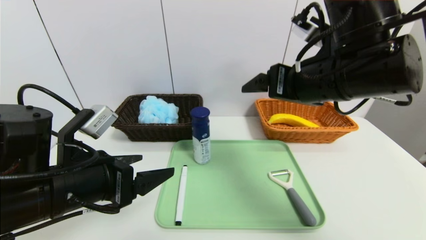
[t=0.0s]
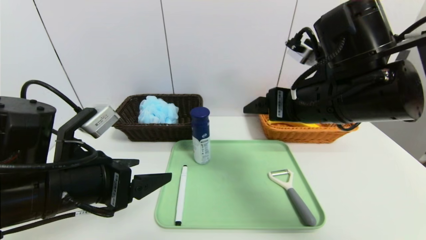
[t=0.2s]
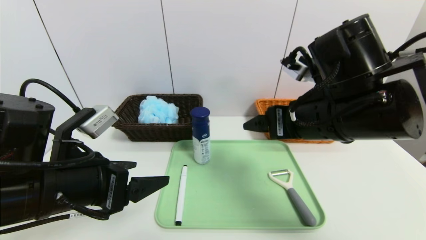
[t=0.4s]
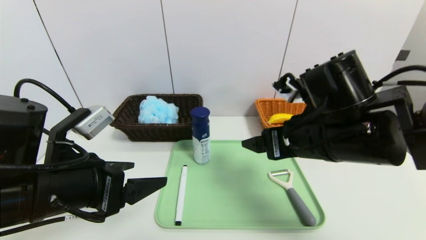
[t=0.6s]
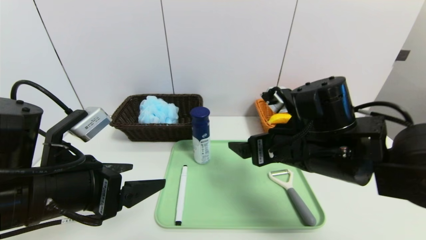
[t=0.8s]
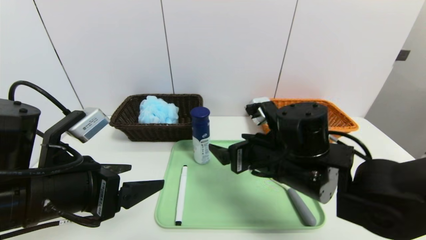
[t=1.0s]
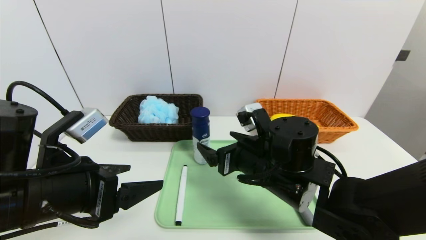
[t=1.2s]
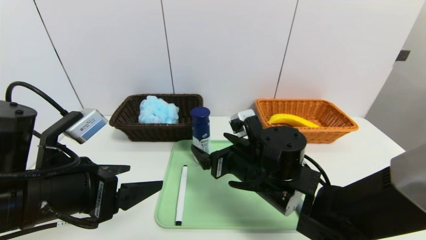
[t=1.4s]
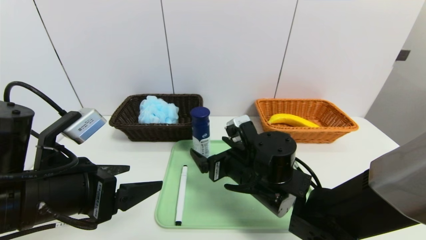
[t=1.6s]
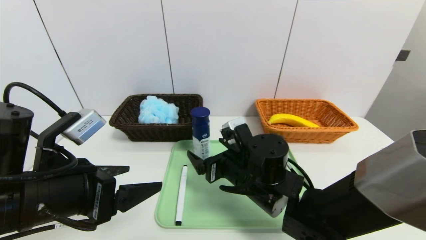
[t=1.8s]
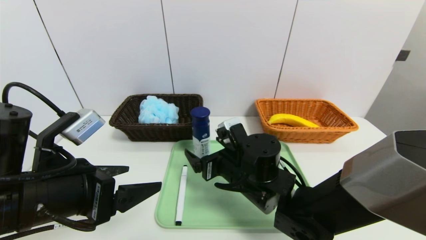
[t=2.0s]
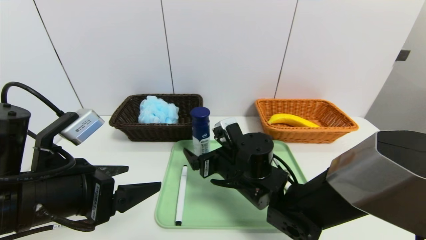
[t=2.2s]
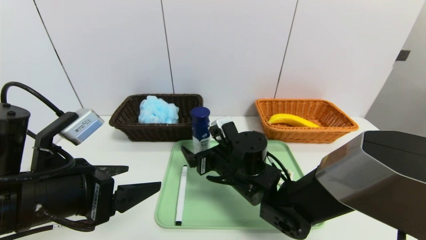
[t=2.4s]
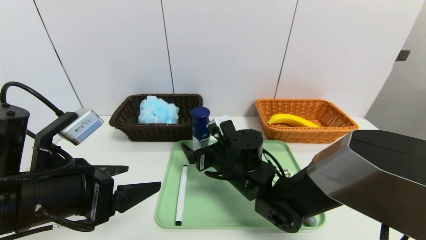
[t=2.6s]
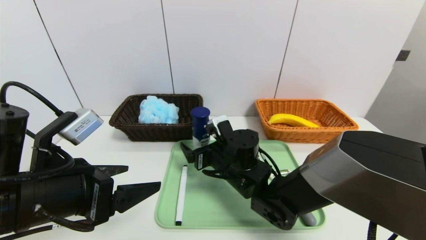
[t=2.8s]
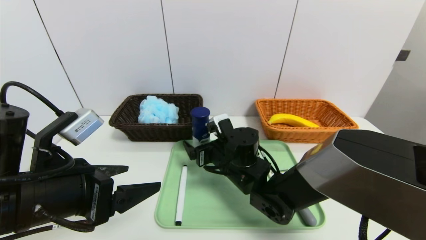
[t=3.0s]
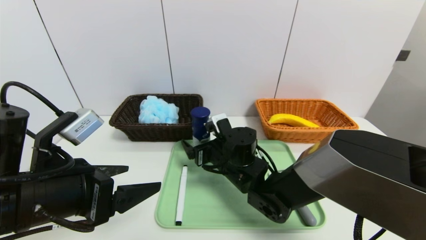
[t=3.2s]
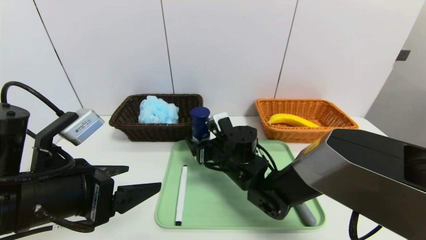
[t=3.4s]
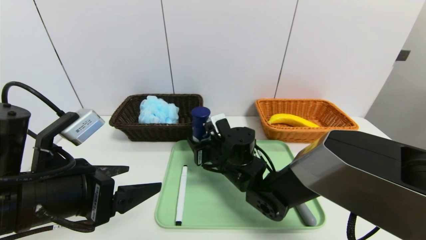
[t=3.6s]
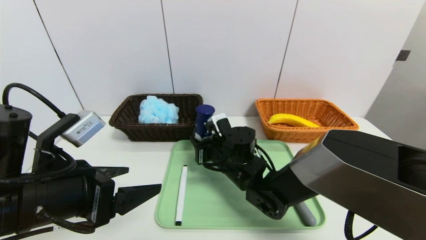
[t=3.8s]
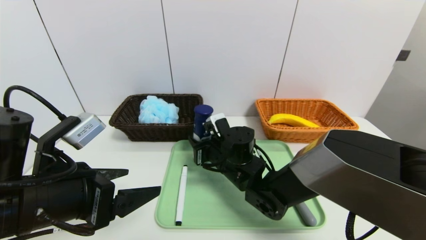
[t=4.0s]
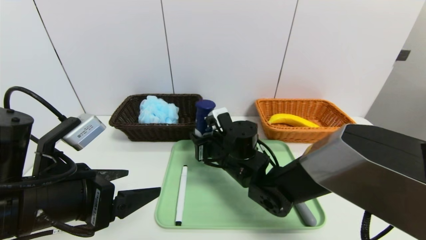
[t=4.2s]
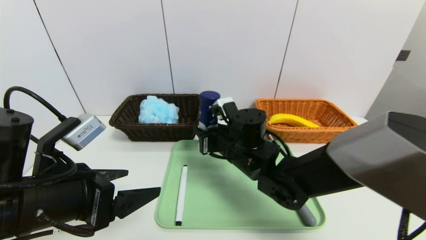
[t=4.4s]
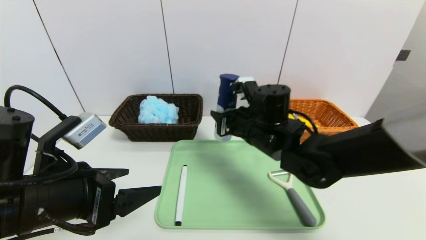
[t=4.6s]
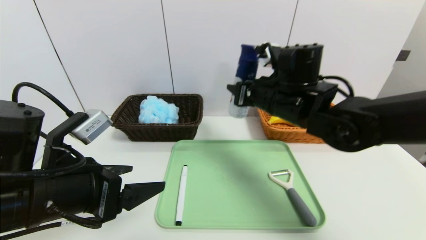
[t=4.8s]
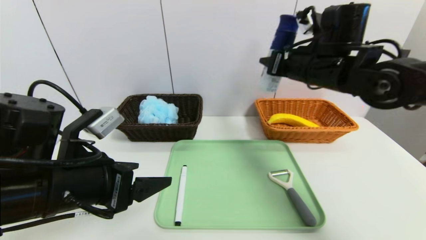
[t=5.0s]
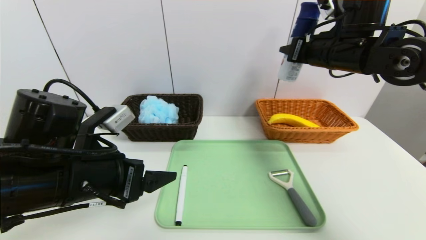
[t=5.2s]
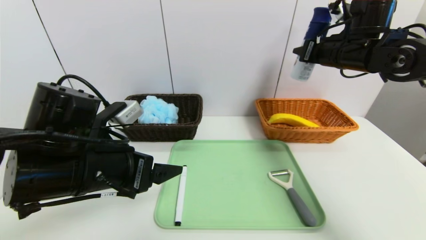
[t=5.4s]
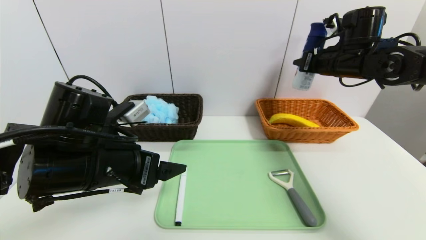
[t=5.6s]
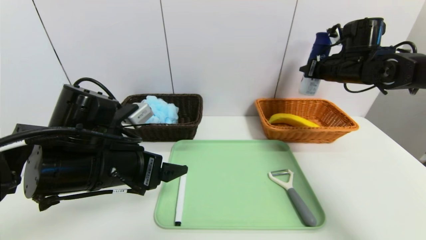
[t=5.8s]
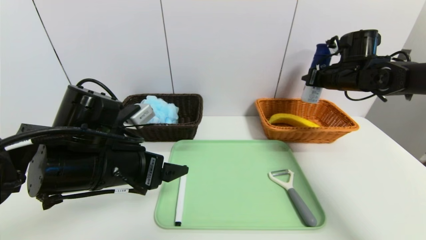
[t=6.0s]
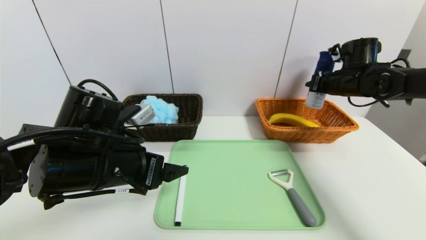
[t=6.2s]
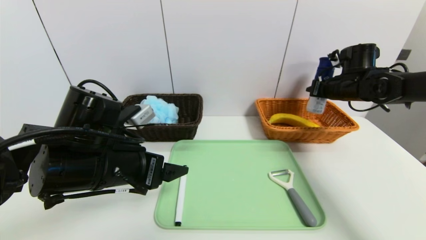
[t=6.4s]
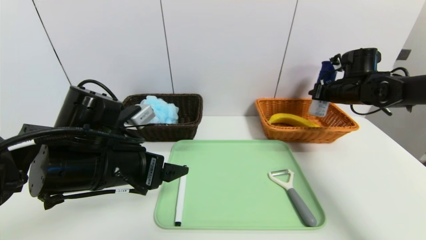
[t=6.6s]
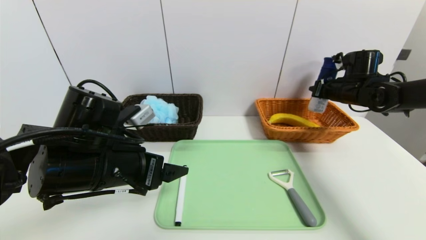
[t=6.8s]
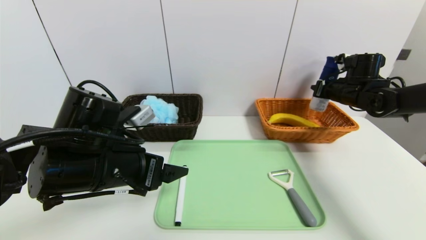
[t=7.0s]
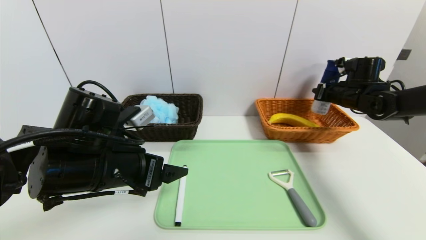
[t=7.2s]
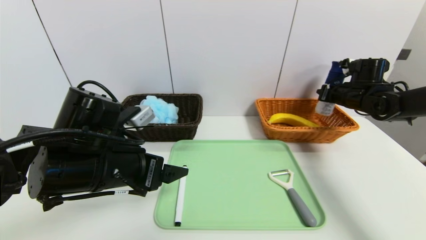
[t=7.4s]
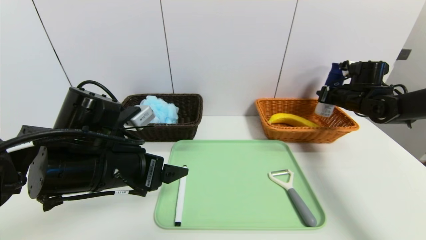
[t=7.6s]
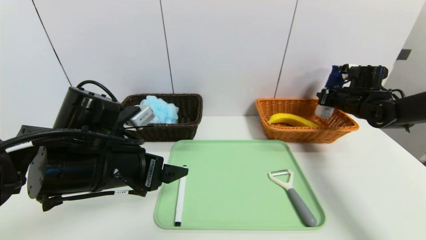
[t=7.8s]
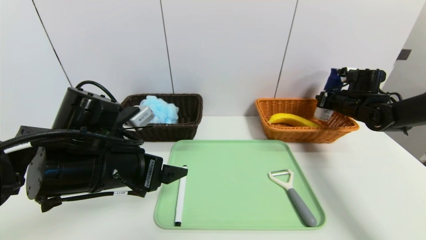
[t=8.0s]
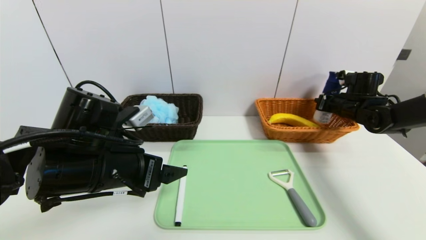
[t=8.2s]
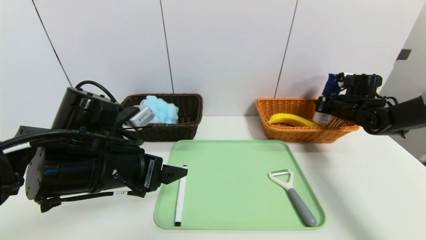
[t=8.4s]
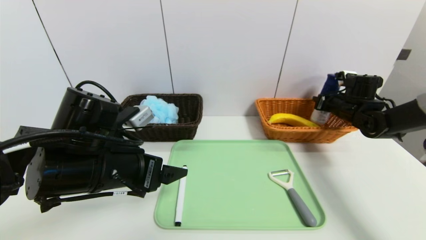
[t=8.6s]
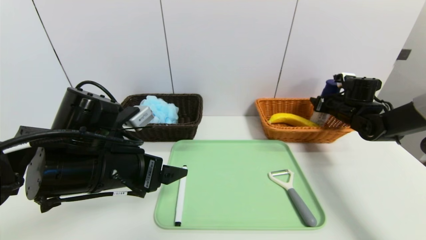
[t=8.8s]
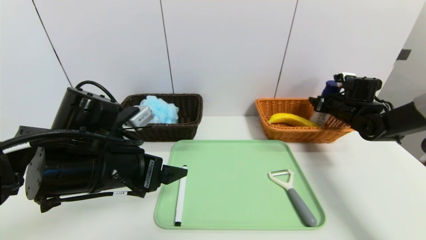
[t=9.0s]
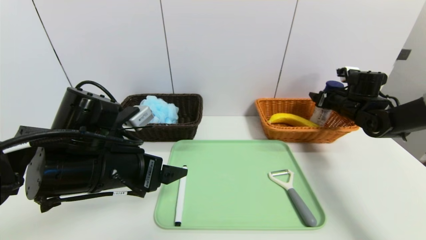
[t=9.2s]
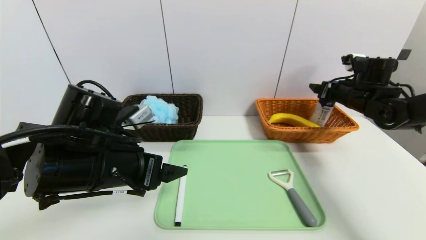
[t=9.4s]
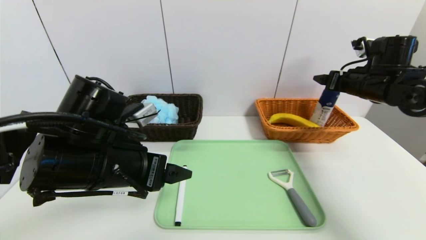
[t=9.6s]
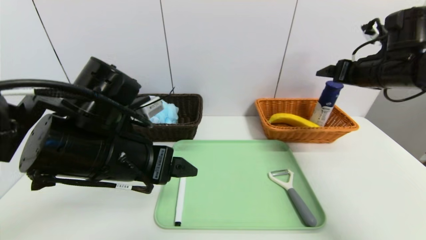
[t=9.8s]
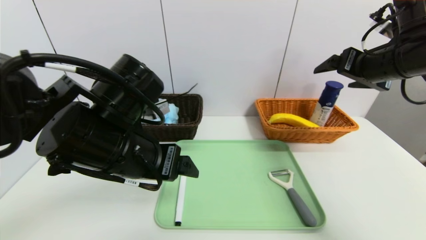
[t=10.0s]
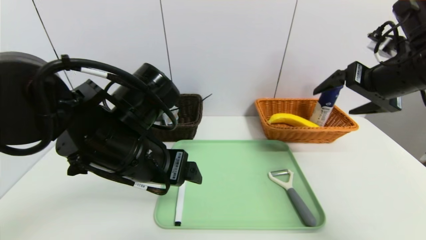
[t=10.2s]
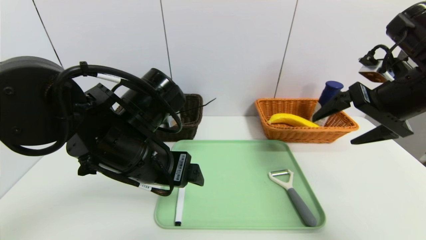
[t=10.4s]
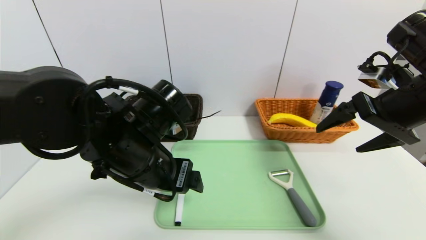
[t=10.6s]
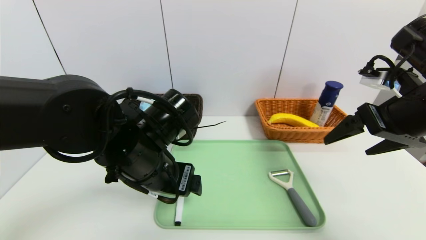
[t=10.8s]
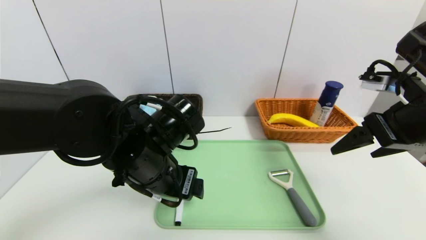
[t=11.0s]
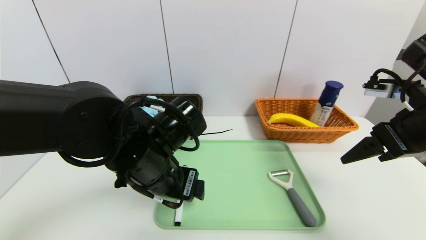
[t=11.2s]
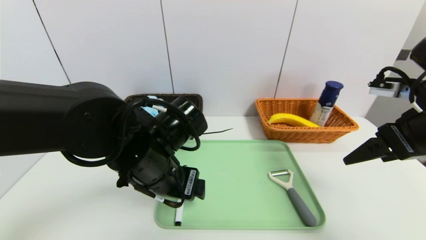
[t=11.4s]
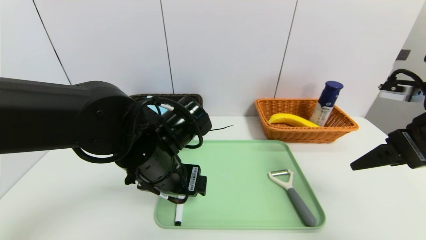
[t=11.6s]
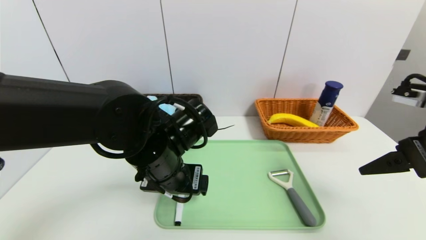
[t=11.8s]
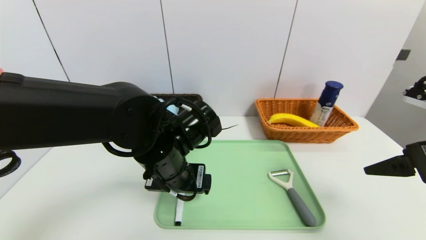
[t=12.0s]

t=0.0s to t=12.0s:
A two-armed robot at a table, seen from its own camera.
Task of the whole recording: place the food in the right basket with the right gripper, and place the non food items in the left basket with the left gripper.
Step, t=0.0s to t=10.0s: Grasp the yogurt and put it in the right basket.
t=0.0s to t=1.6s: The right gripper moves downward and to the left, roughly 20 cm.
t=1.6s to t=3.0s: The right gripper travels forward by roughly 5 cm.
t=3.0s to t=4.4s: The right gripper closes up.
t=4.4s to t=6.0s: The right gripper is displaced to the right, forward and upward by some 30 cm. Meanwhile the left gripper shifts some 5 cm forward.
t=6.0s to t=7.6s: The right gripper travels downward and to the right by roughly 10 cm.
t=7.6s to t=9.0s: The right gripper opens.
t=9.0s to t=10.4s: The right gripper goes approximately 25 cm backward, upward and to the left; the left gripper is displaced to the right by some 5 cm.
t=10.4s to t=12.0s: The left gripper changes place by some 5 cm, while the right gripper heads backward, covering about 10 cm.

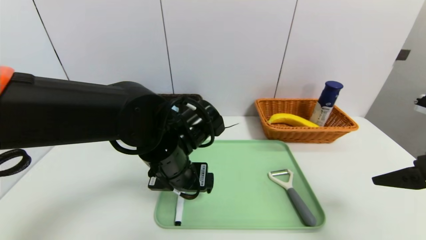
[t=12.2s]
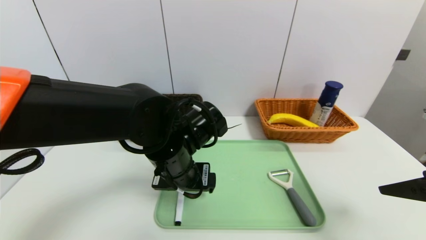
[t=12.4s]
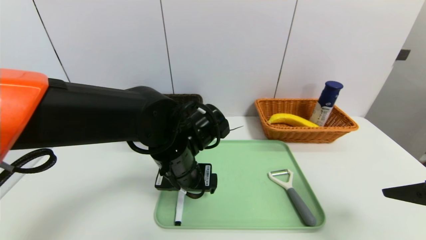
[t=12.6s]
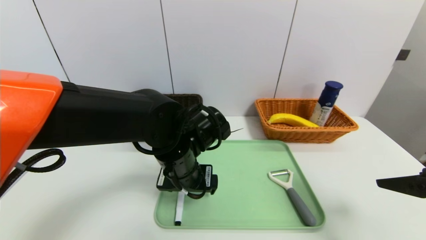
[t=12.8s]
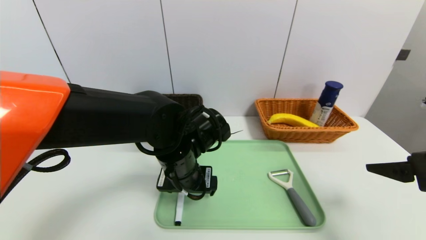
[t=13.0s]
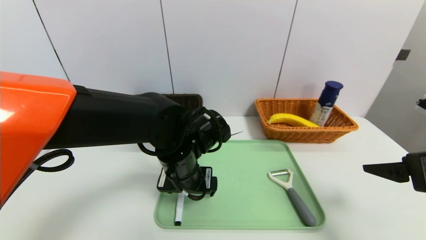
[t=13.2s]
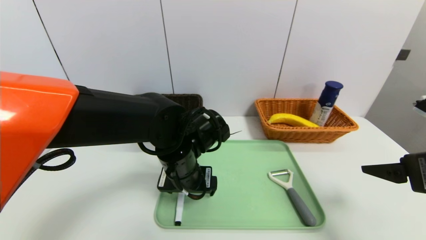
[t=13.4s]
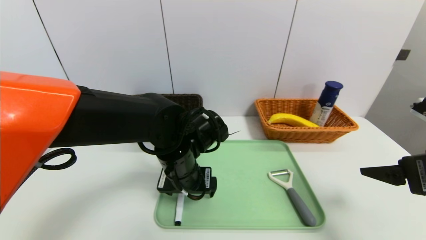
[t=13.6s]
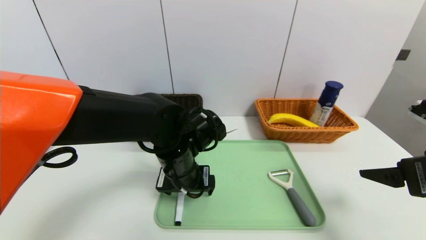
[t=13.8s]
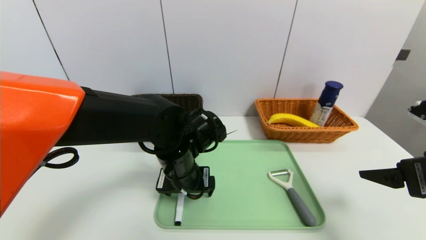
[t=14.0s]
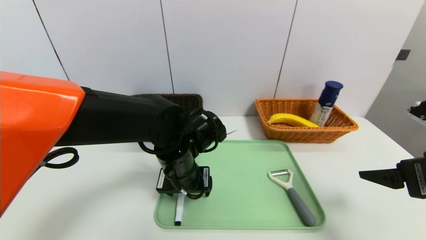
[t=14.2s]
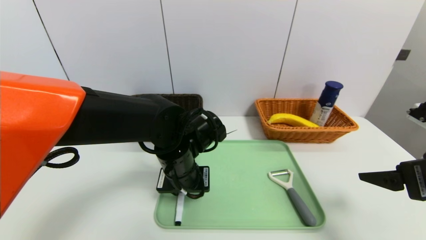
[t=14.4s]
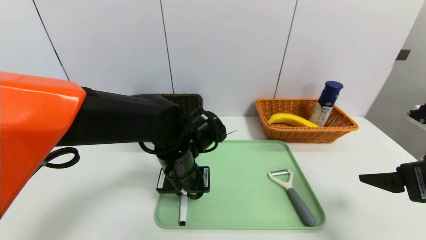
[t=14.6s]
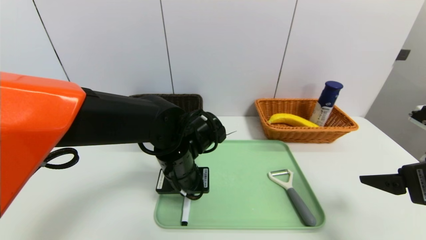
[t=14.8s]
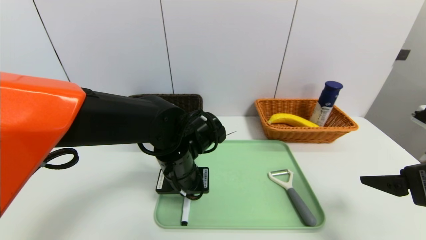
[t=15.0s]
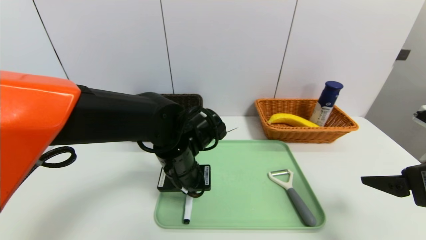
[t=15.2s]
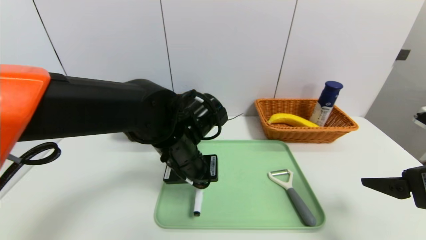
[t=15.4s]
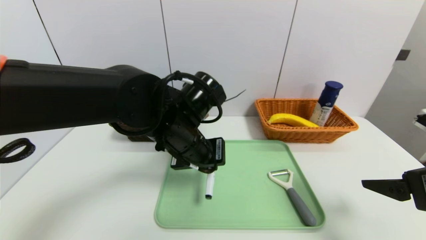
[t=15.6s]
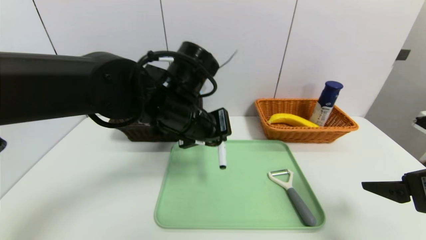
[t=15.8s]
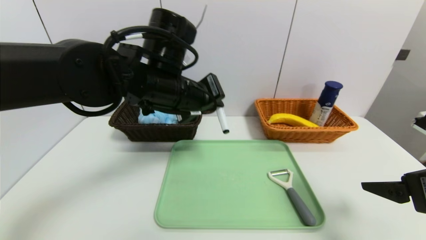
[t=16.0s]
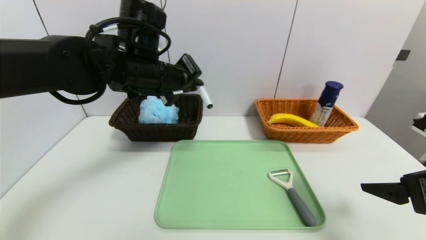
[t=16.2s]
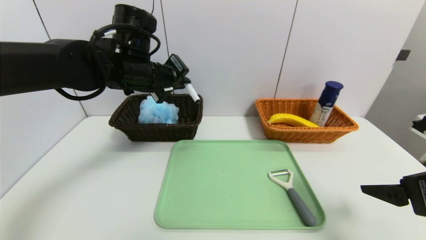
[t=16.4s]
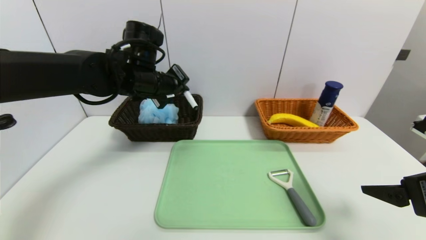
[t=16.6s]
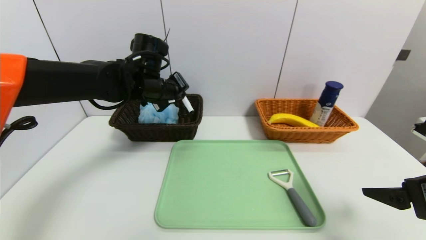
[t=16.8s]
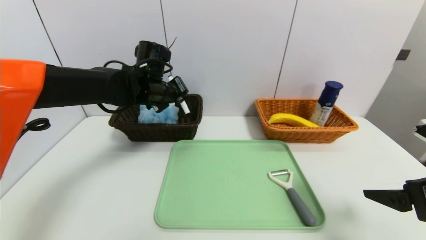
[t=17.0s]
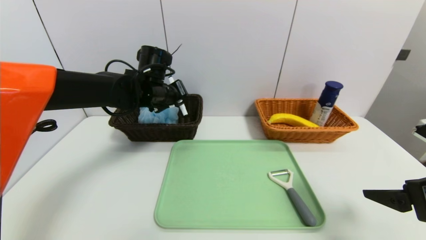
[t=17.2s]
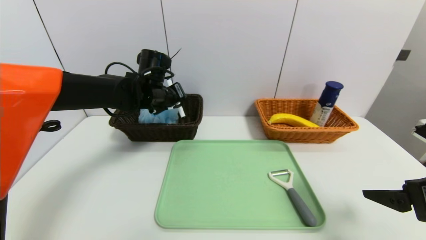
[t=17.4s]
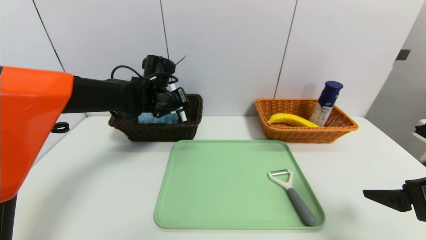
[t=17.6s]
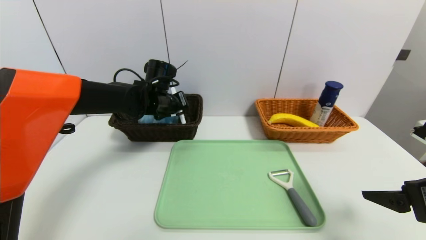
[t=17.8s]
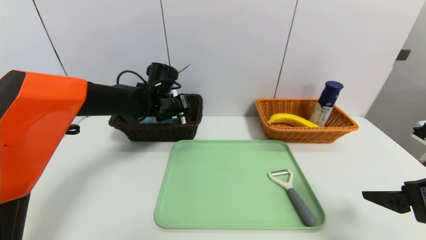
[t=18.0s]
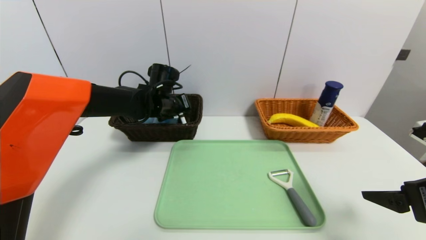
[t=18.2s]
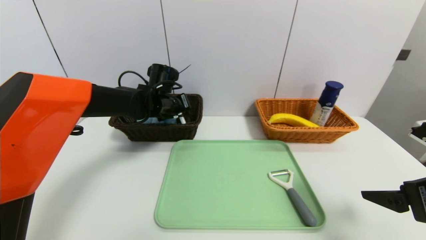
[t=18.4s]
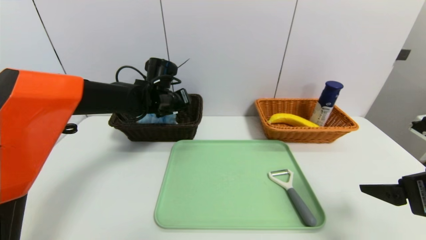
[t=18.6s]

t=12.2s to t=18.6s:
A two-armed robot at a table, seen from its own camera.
Task of the whole recording: place the food in the right basket with the right gripper, and place the non food items in the left basket with the left gripper.
Step, t=12.2s to t=18.6s: Grasp the black marker and put it in the left basket.
t=12.2s to t=13.8s: There are only small adjustments of the grippers.
t=13.8s to t=15.4s: The left gripper closes.
t=15.4s to t=17.0s: The left gripper travels forward, to the left and upward by approximately 15 cm.
t=17.0s to t=18.6s: The left gripper opens up.
